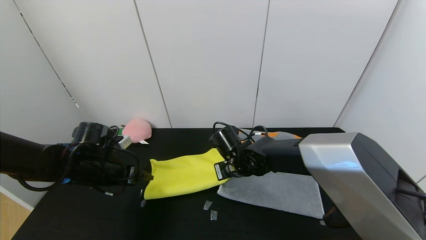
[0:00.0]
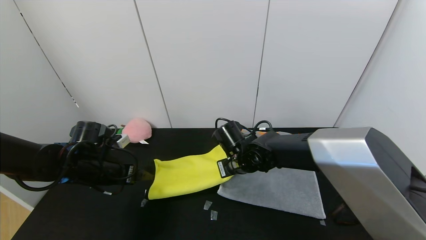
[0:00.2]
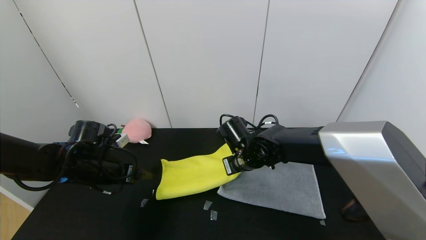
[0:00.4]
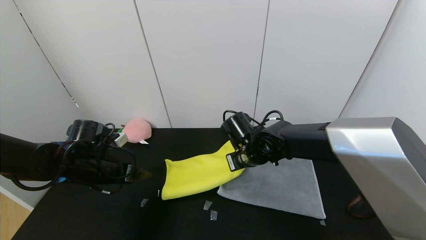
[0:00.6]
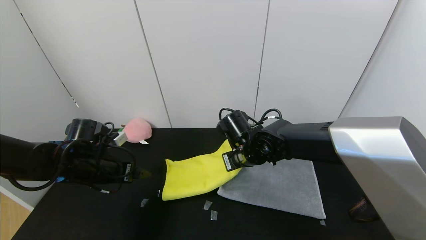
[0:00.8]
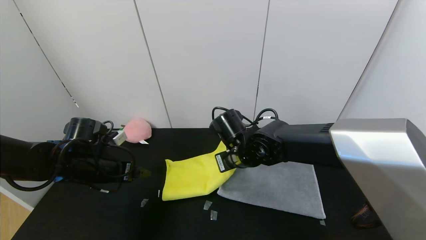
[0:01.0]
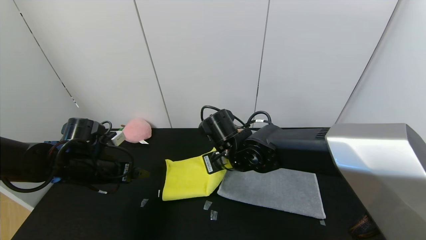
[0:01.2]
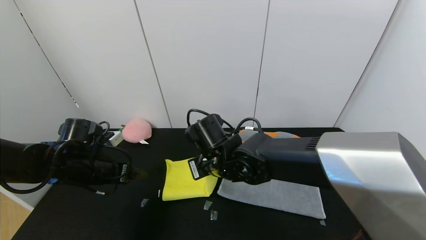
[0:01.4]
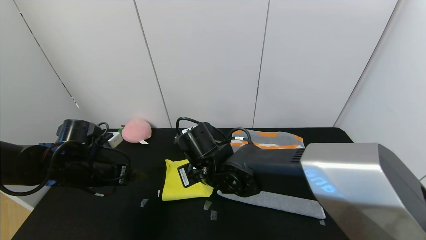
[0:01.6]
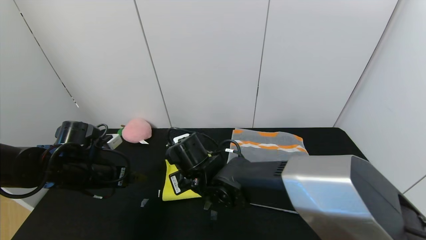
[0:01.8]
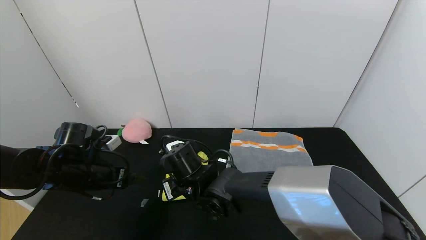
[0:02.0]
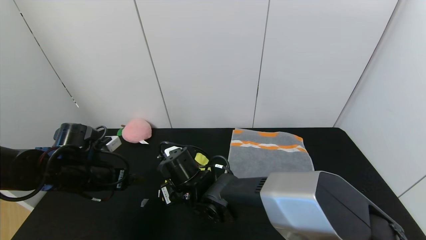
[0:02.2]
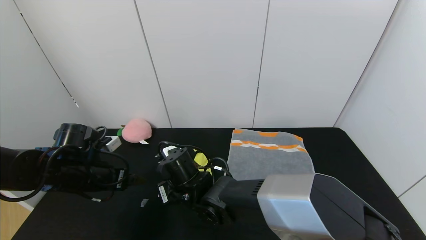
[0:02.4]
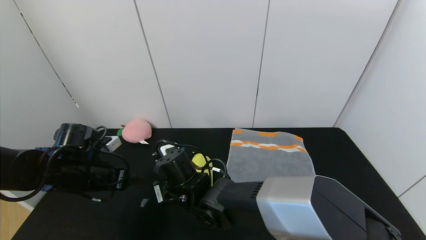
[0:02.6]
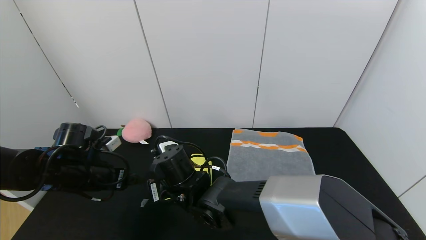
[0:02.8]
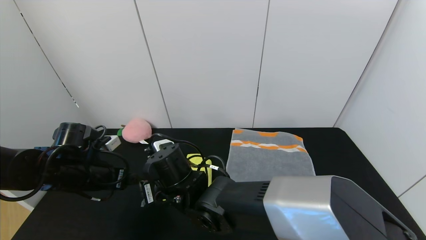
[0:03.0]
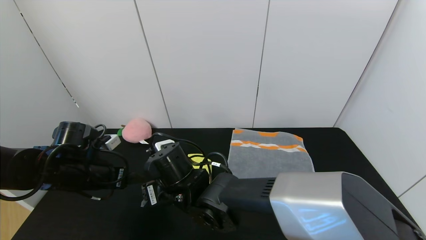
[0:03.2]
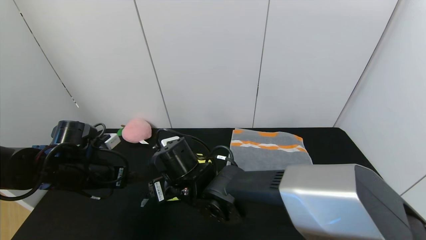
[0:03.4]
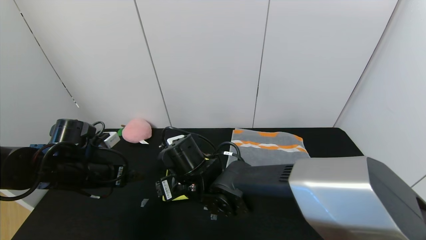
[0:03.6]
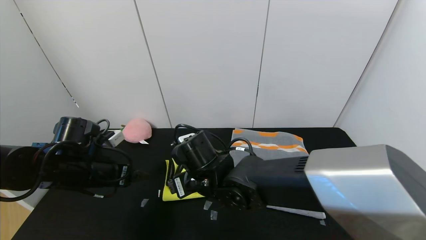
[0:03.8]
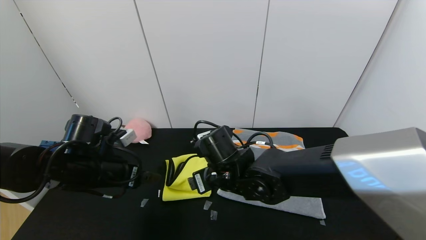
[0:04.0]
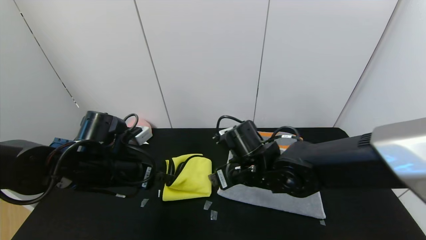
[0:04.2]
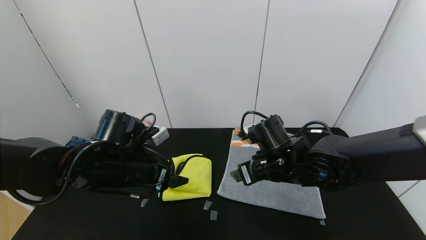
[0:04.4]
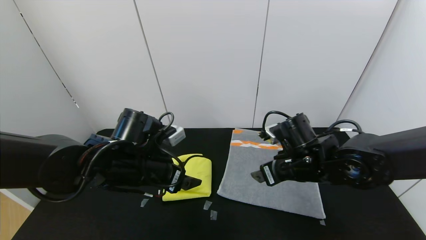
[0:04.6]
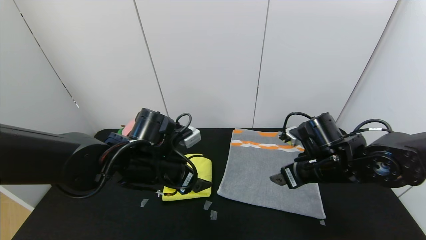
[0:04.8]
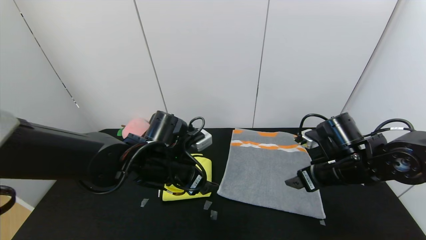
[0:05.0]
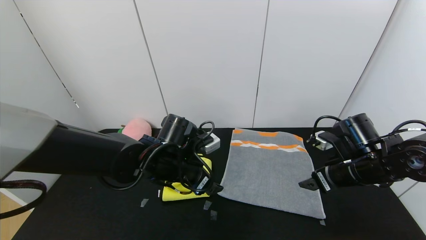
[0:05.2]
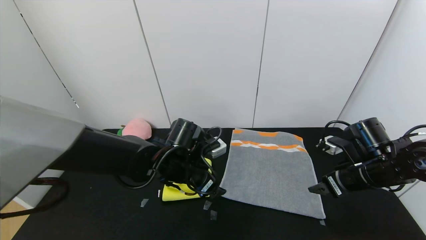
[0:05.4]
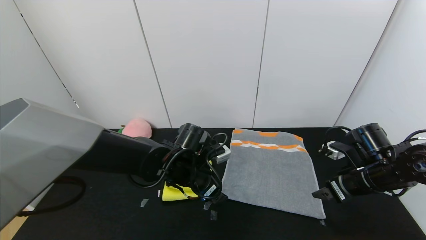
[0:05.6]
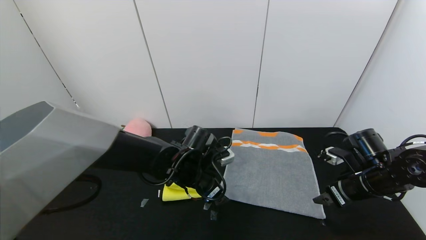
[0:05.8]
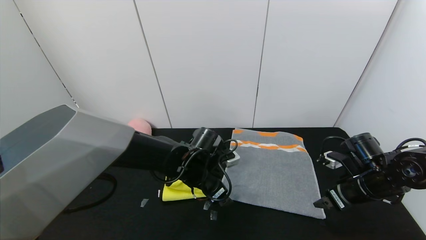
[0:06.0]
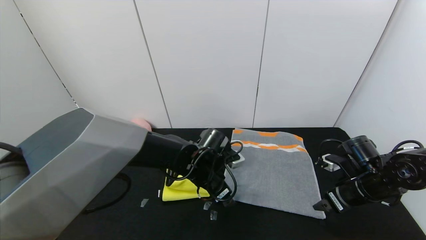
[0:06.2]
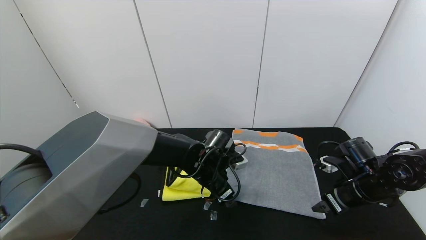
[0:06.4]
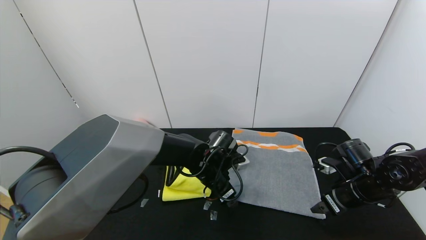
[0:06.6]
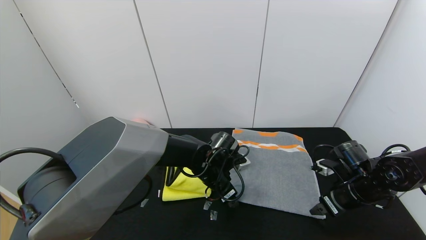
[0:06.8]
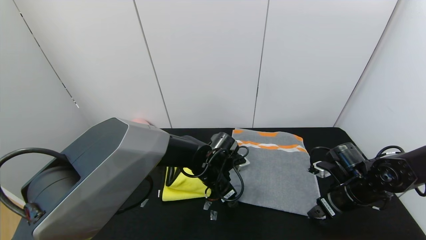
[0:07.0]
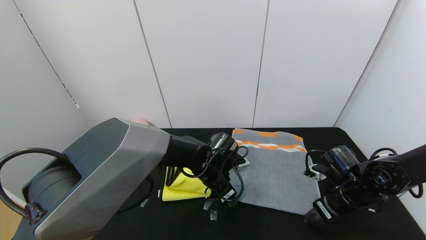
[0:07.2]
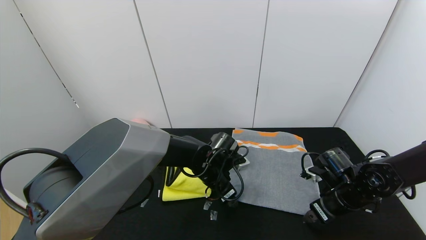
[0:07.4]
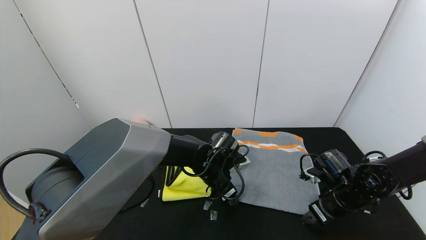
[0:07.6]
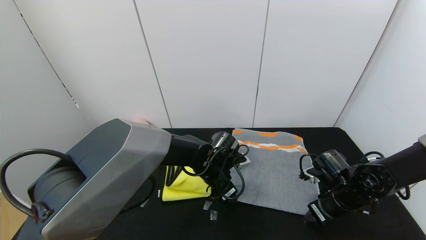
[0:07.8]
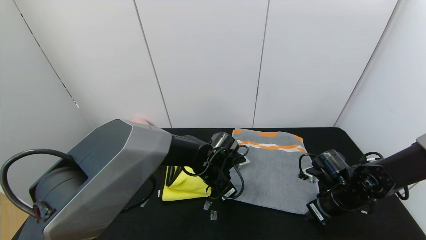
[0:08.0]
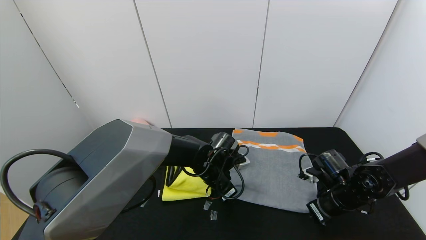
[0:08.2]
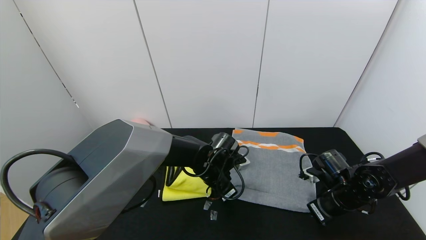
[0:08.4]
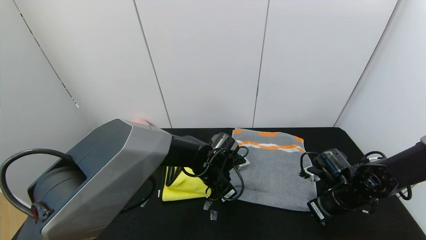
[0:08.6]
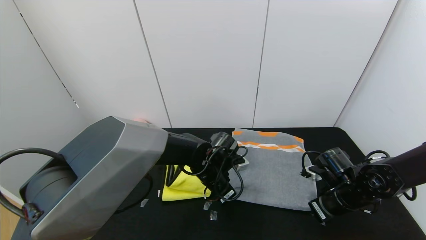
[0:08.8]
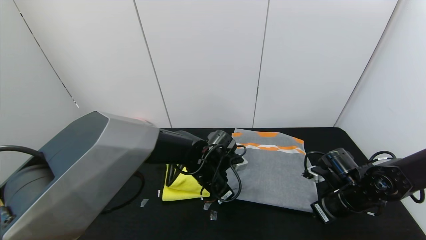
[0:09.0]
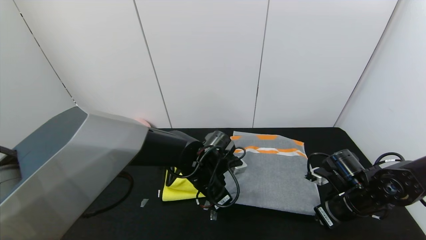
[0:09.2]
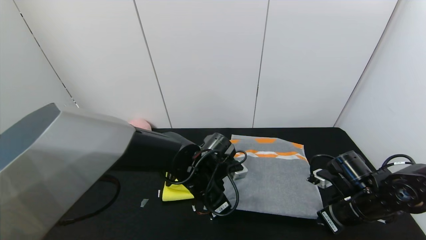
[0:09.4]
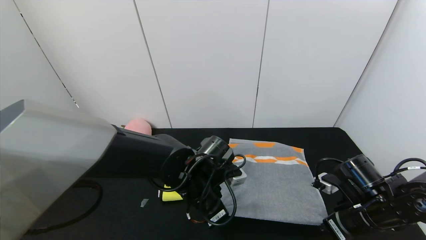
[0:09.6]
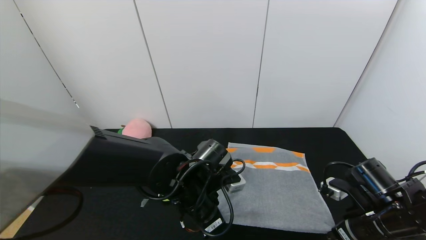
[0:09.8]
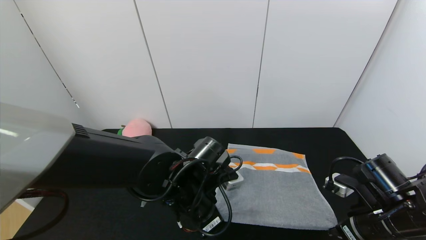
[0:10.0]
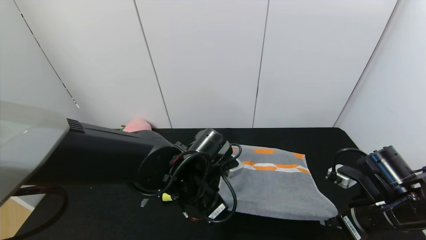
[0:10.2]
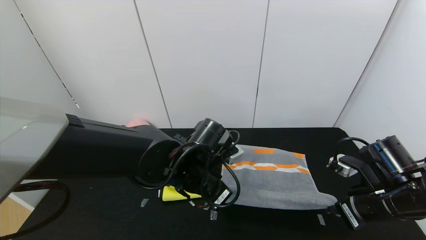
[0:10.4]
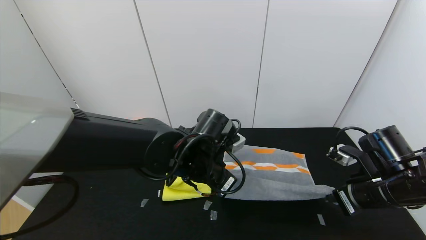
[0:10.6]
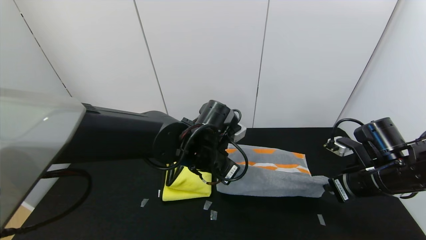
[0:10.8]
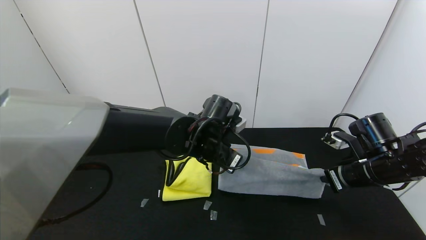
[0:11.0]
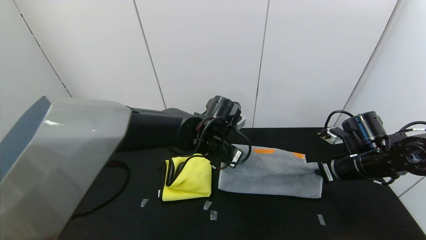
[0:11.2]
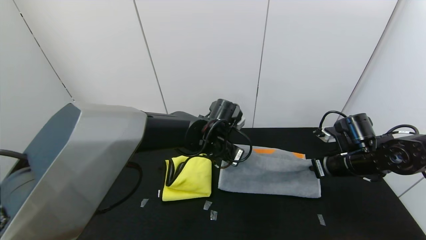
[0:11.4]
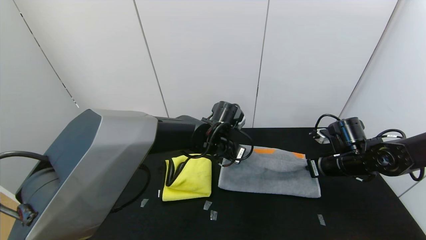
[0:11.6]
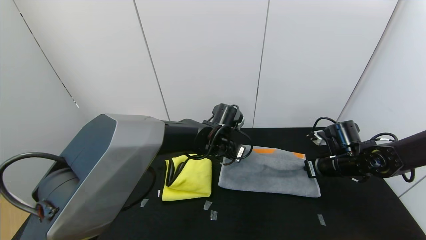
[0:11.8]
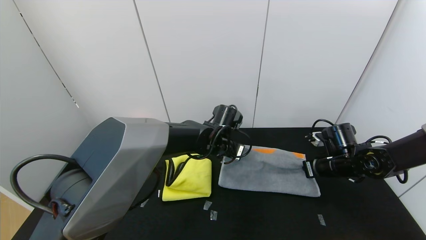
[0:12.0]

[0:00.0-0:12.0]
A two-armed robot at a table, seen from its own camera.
Task of the whole recording: Use the gripper to fold the yellow towel and grey towel in half twice,then put the yellow towel on the grey towel.
Step, 0:00.0 to 0:03.2: Fold the yellow towel from right to left with right gripper.
0:00.0 to 0:01.6: The right gripper heads to the left and backward, covering roughly 10 cm.
0:01.6 to 0:03.0: The right gripper is displaced to the left by roughly 5 cm, and opens.
0:03.0 to 0:04.4: The left gripper moves to the right, approximately 10 cm. The right gripper travels to the right by about 20 cm.
0:04.4 to 0:06.0: The left gripper is displaced to the right, downward and forward by about 15 cm. The right gripper shifts some 20 cm to the right.
0:06.0 to 0:07.6: The right gripper changes place by approximately 5 cm.
0:07.6 to 0:09.0: The left gripper closes up. Meanwhile the right gripper closes up.
0:09.0 to 0:10.4: The right gripper is displaced upward and backward by about 10 cm, while the left gripper travels backward and upward by some 10 cm.
0:10.4 to 0:12.0: Both grippers travel together forward, approximately 15 cm.

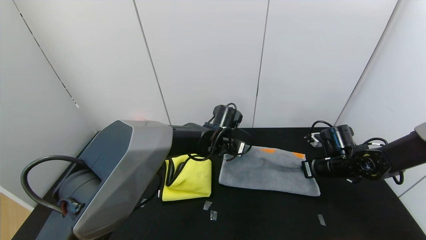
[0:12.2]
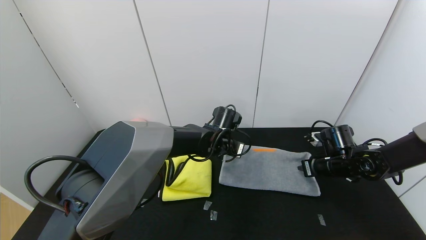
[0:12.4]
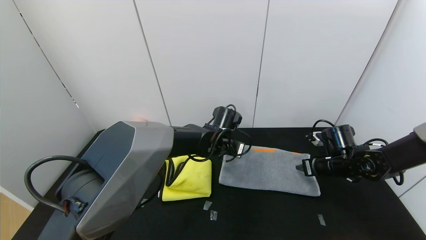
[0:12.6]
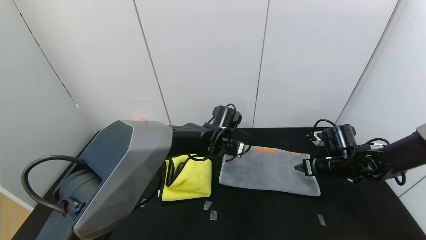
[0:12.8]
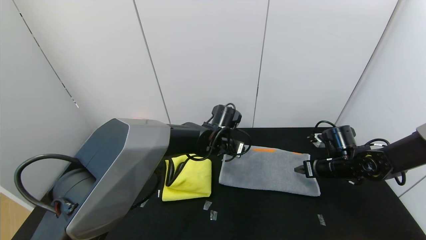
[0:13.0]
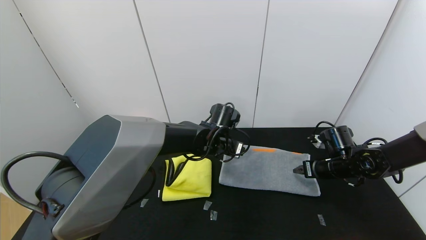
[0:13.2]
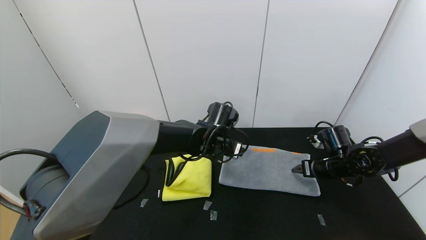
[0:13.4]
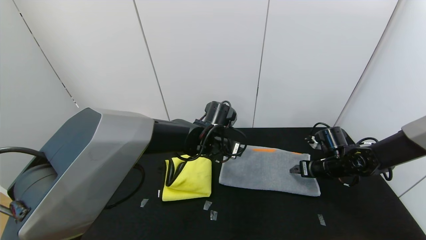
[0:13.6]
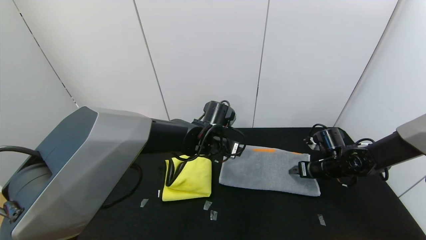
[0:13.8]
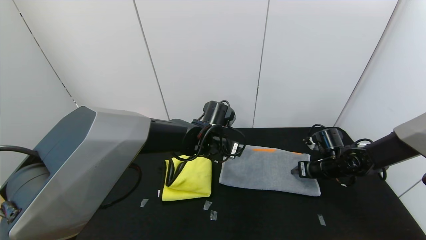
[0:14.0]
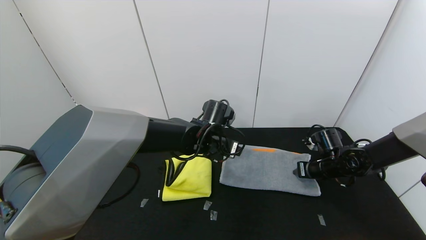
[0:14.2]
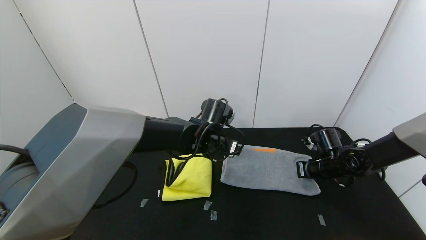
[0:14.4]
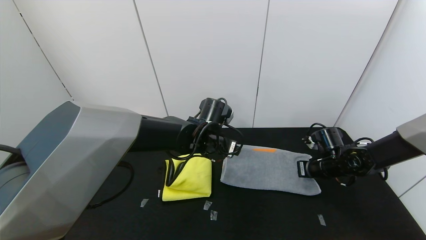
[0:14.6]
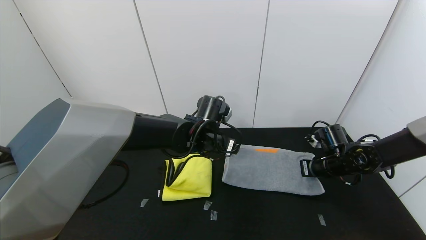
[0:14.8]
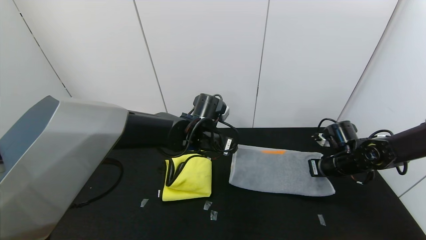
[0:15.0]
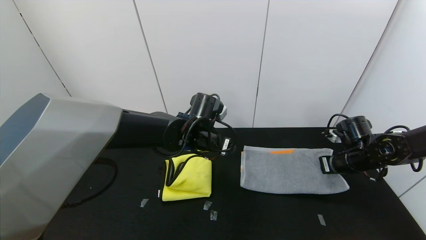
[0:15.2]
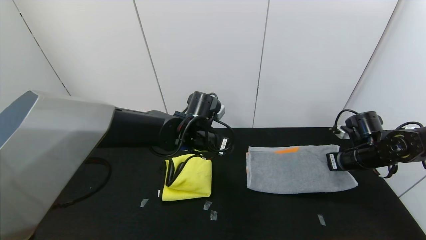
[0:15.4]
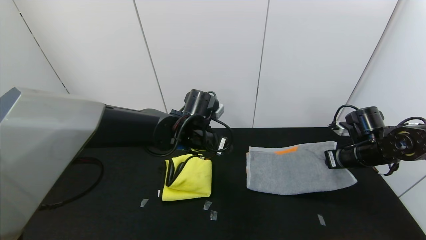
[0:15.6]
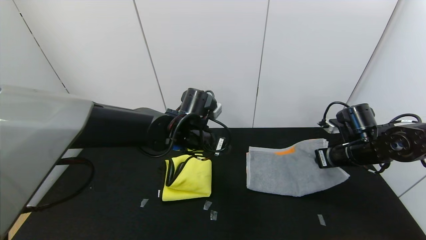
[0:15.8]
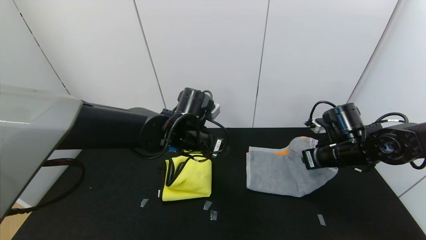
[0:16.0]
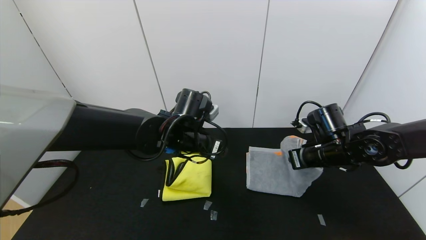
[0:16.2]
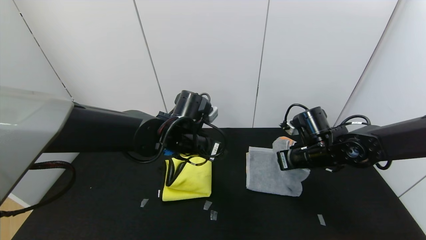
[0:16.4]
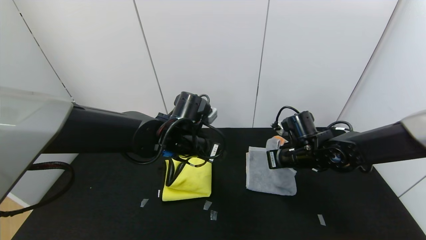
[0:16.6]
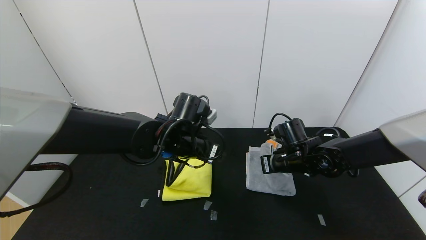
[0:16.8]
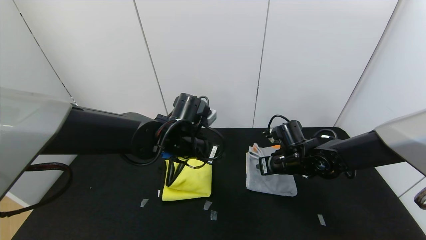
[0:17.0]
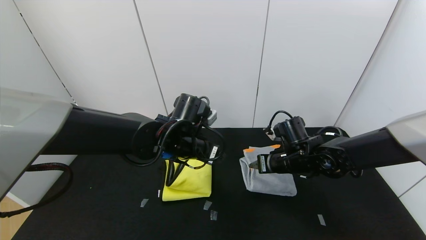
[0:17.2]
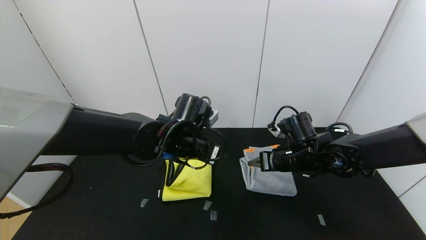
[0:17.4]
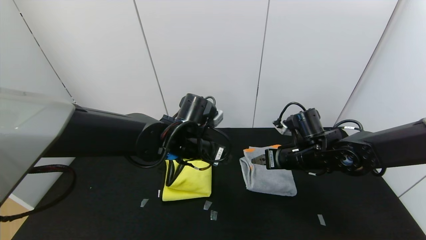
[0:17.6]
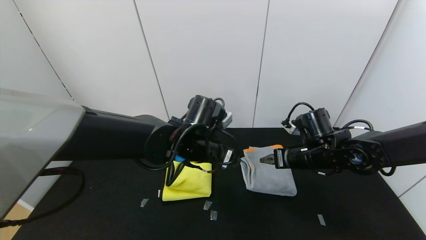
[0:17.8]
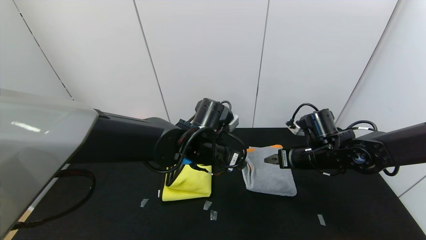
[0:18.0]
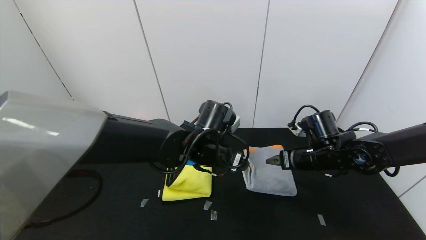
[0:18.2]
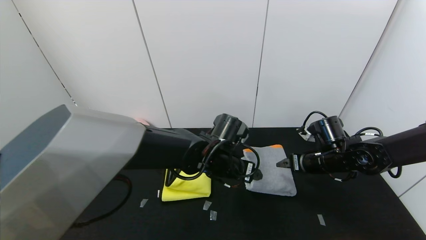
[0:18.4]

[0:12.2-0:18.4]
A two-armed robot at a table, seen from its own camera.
Task of the whole recording: Use the gripper to fold the yellow towel and grey towel in half twice,then put the yellow towel on the grey towel.
Step, 0:13.2 to 0:17.4: Fold the gray towel from right to left with right gripper.
0:12.2 to 0:13.8: The right gripper opens, while the left gripper opens its fingers.
0:13.8 to 0:15.4: The right gripper goes some 10 cm upward and to the right, and closes.
0:15.4 to 0:16.8: The right gripper shifts some 15 cm to the left.
0:16.8 to 0:18.4: The grippers both shift to the right by approximately 10 cm. The right gripper opens up.
